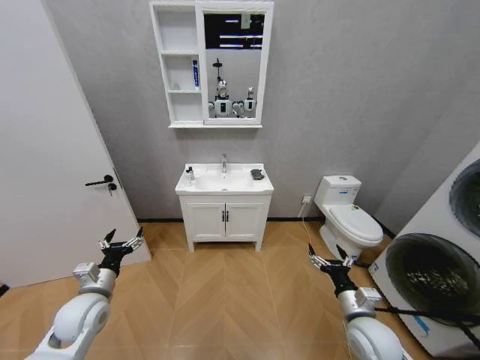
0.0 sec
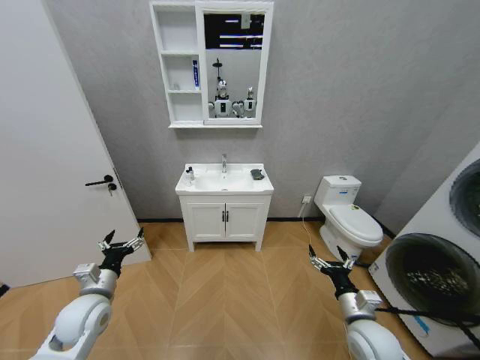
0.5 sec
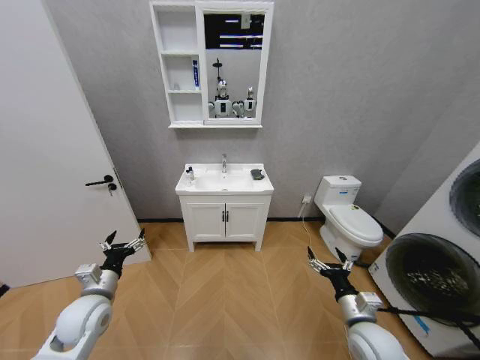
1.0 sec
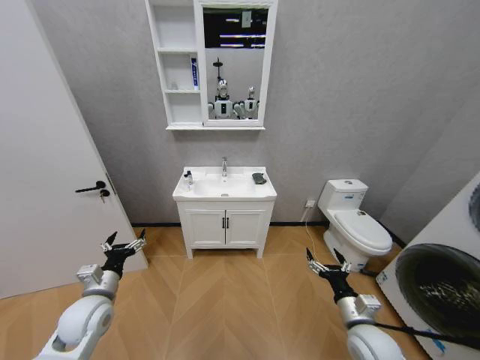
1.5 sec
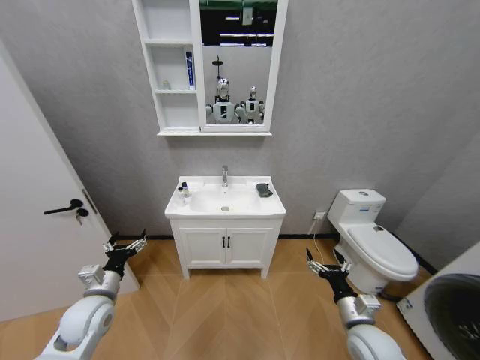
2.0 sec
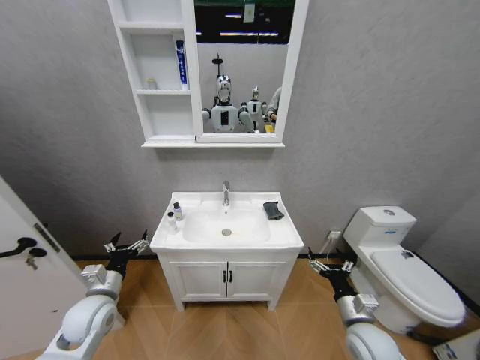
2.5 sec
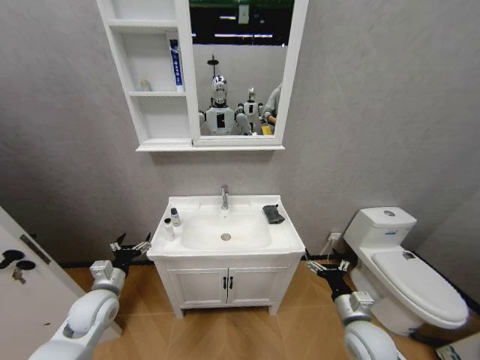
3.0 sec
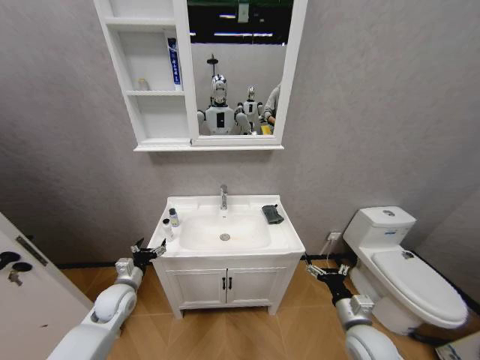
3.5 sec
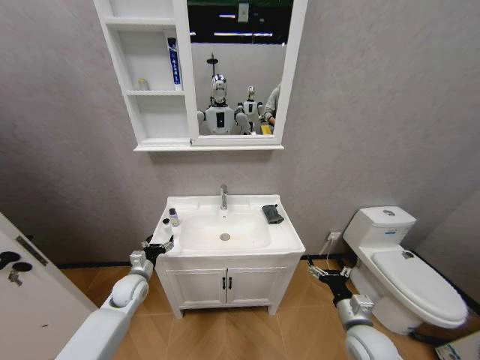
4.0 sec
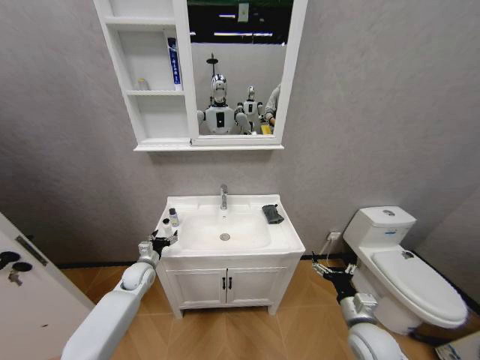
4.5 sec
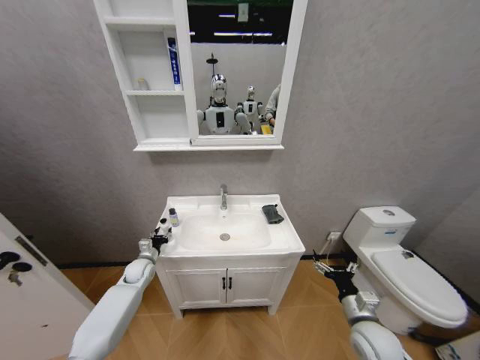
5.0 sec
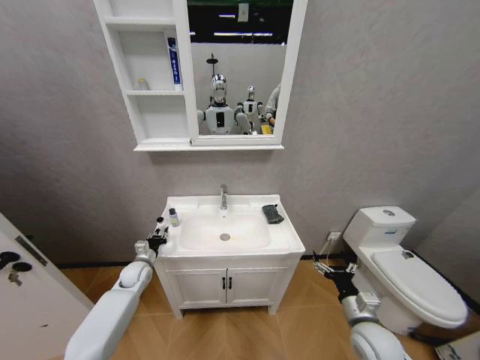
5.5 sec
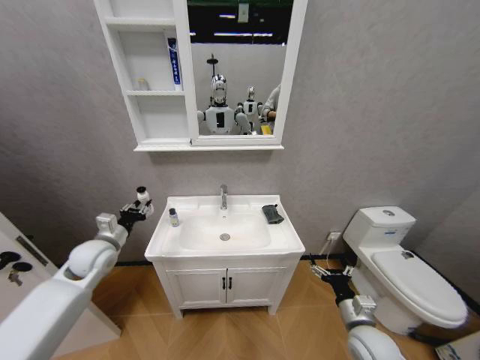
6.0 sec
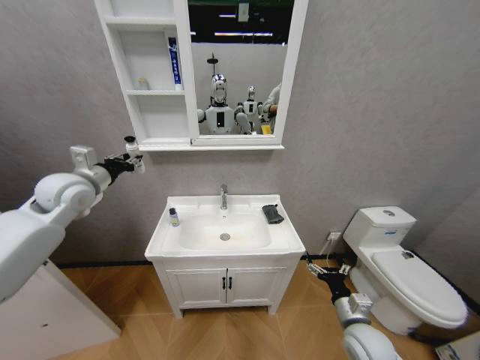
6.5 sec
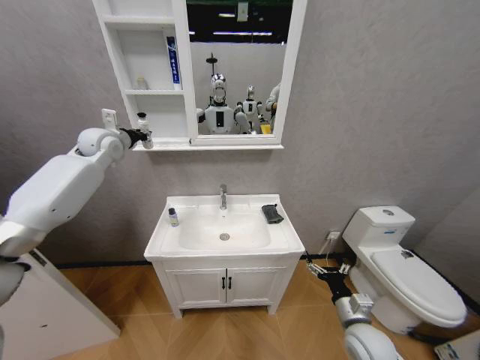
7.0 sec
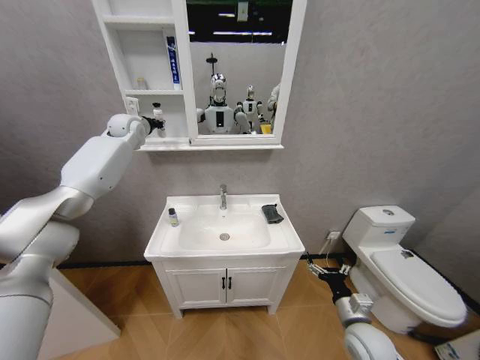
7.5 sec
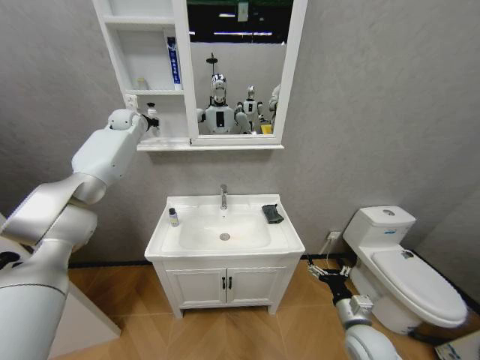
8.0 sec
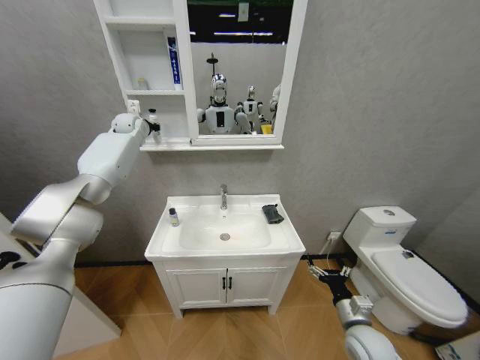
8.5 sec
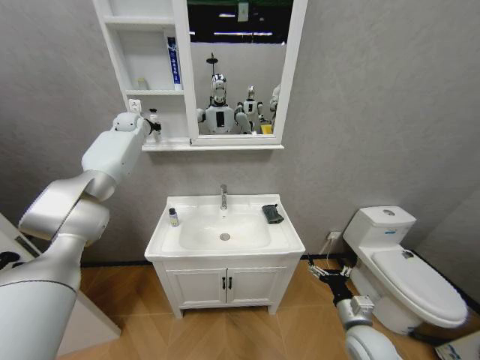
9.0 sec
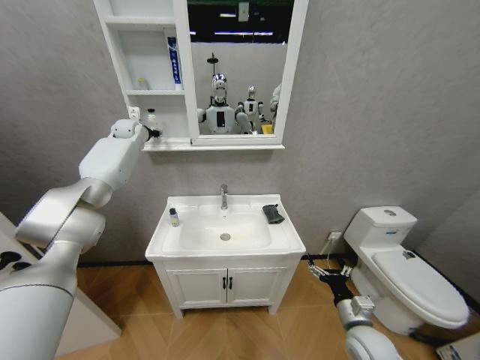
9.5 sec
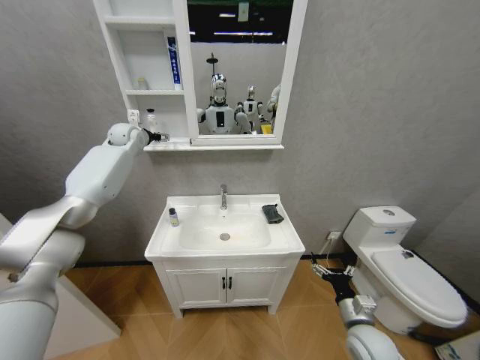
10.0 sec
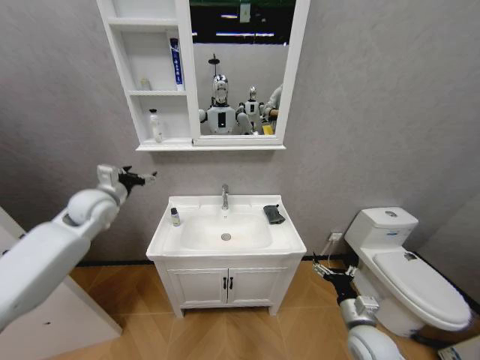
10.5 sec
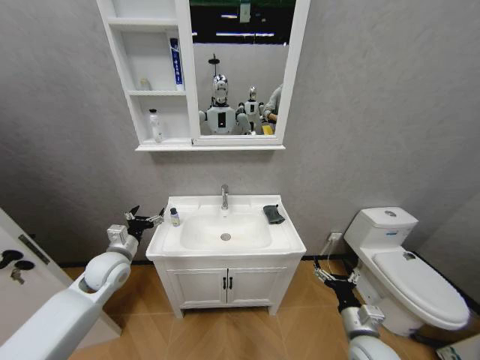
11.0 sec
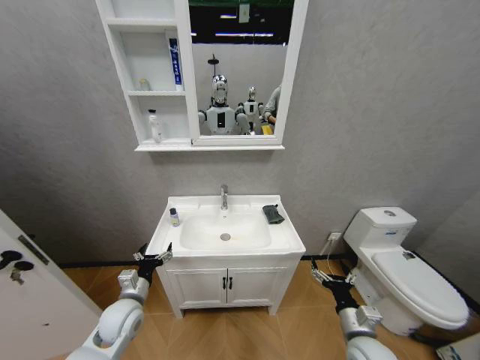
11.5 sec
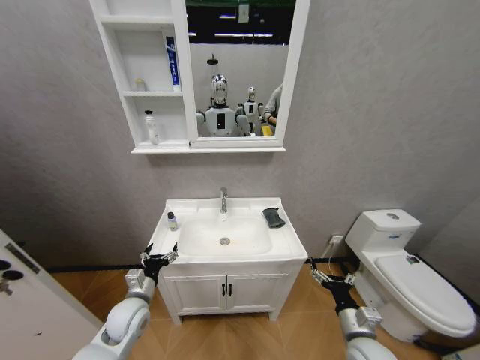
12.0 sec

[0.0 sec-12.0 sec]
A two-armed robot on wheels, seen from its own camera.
Task of the whole recording: Move facial cleanser and shampoo from washbasin to cabinet, then wipe washbasin with towel.
2.0 sec to 4.0 sec: The left gripper shifts roughly 15 cm forward and downward.
4.0 sec to 6.0 sec: The left gripper is displaced upward by some 15 cm, and closes.
6.0 sec to 8.0 sec: The left gripper goes about 40 cm forward and upward.
8.0 sec to 10.0 sec: The left gripper opens.
10.0 sec to 12.0 sec: The left gripper travels backward and downward by approximately 50 cm.

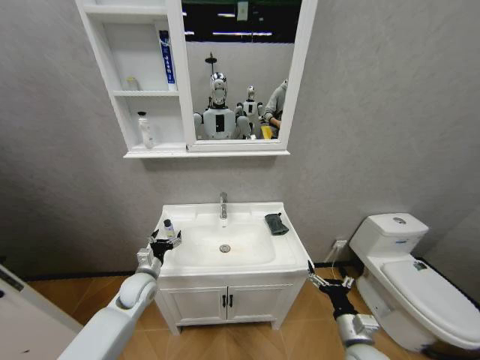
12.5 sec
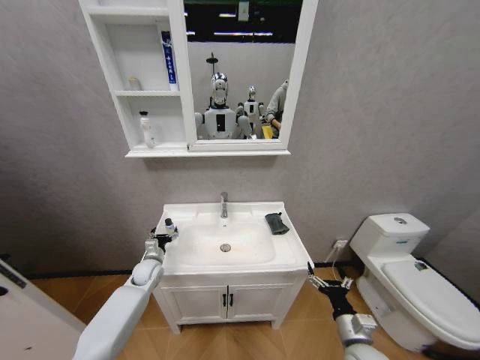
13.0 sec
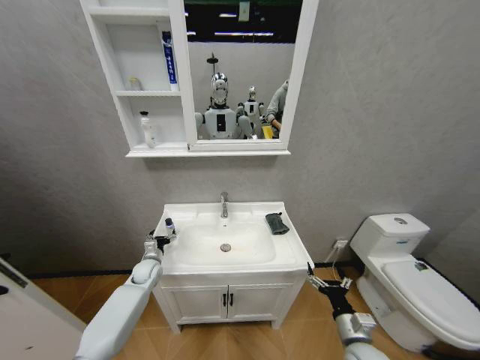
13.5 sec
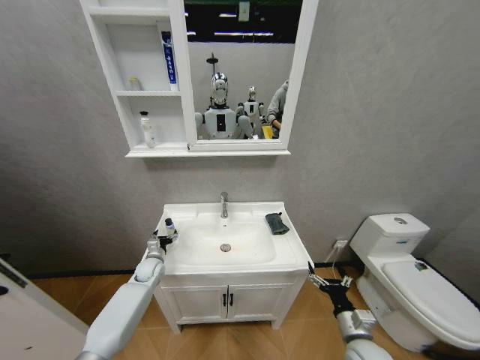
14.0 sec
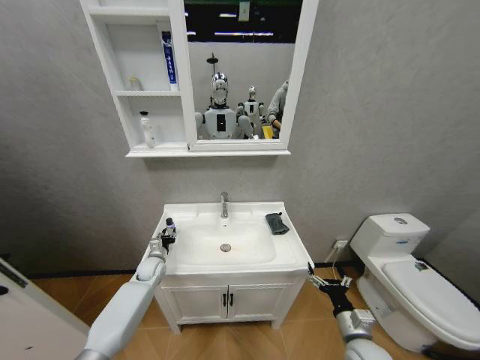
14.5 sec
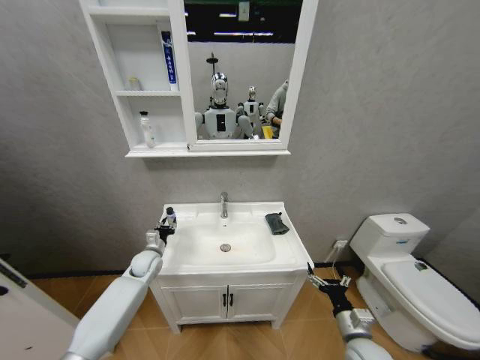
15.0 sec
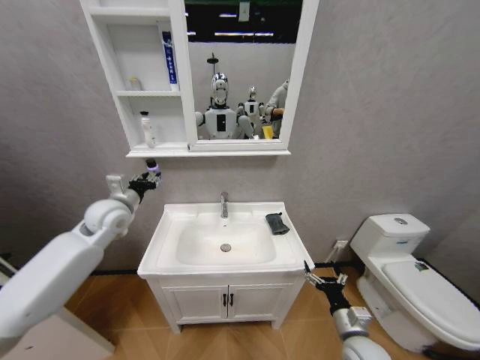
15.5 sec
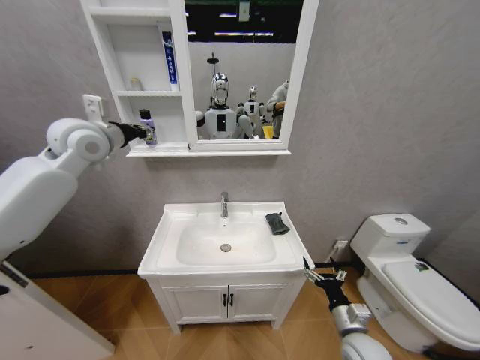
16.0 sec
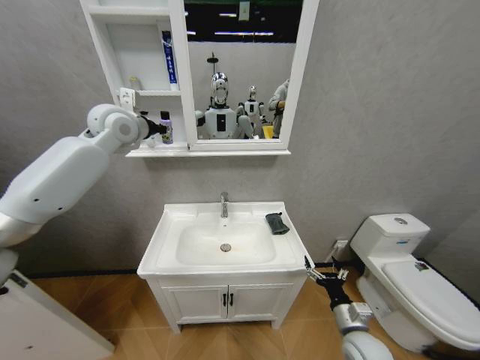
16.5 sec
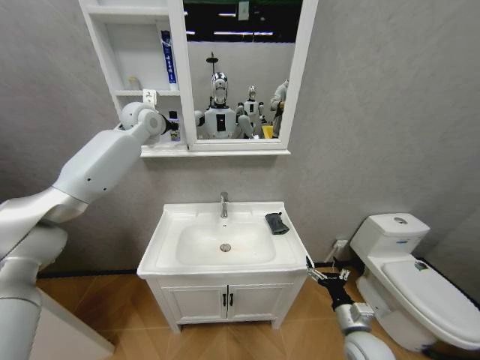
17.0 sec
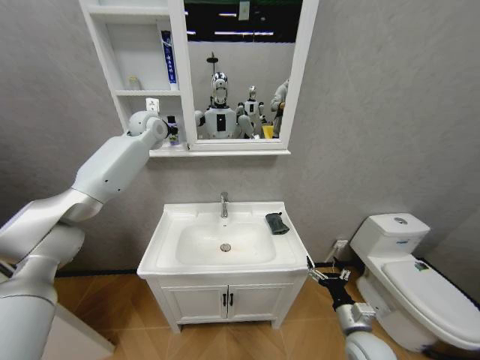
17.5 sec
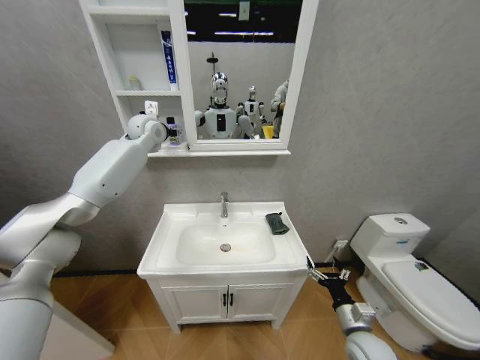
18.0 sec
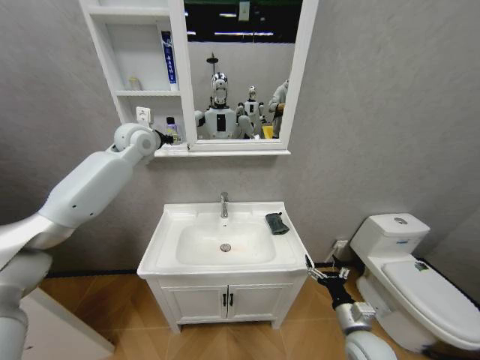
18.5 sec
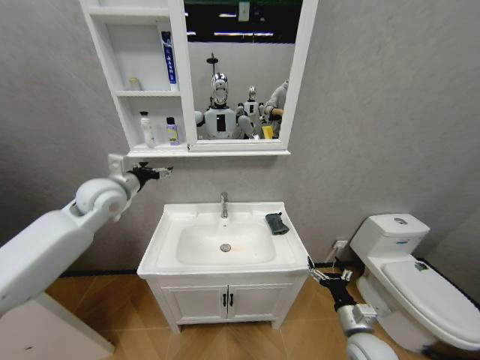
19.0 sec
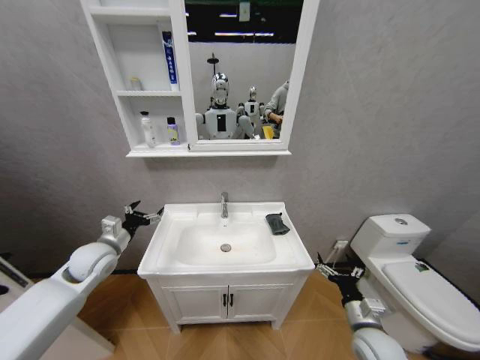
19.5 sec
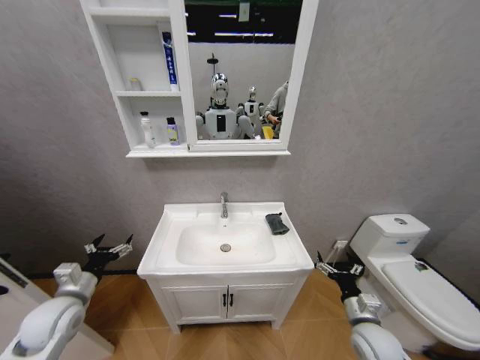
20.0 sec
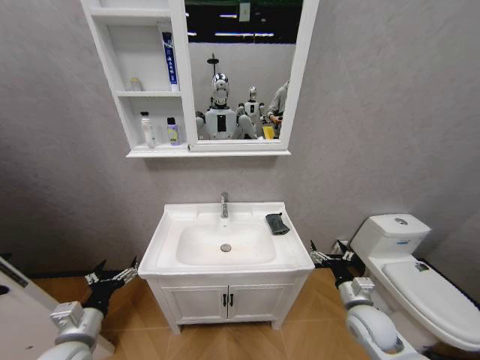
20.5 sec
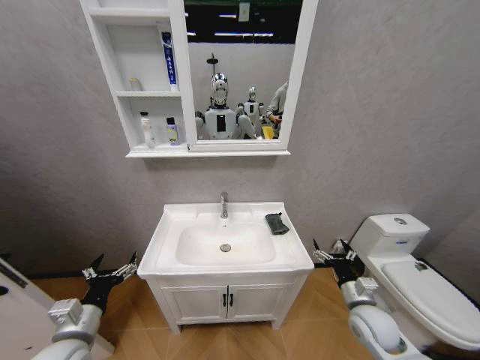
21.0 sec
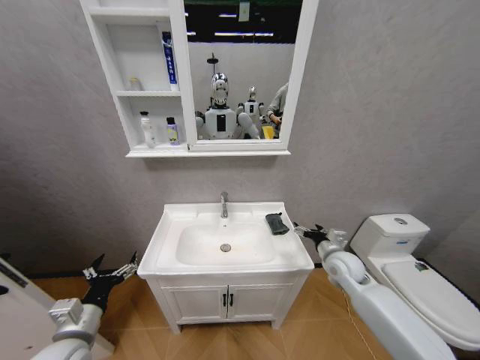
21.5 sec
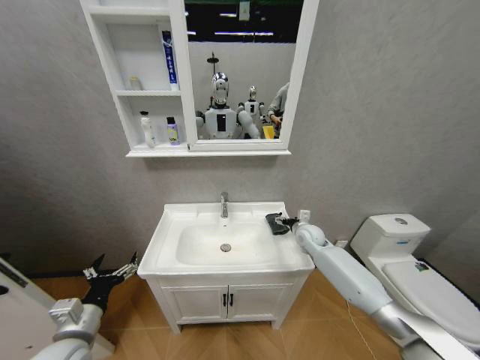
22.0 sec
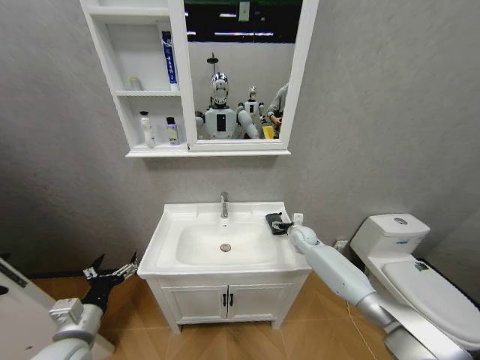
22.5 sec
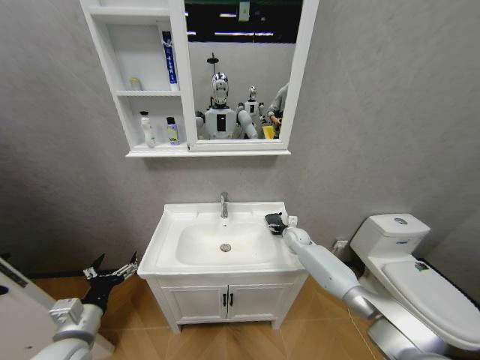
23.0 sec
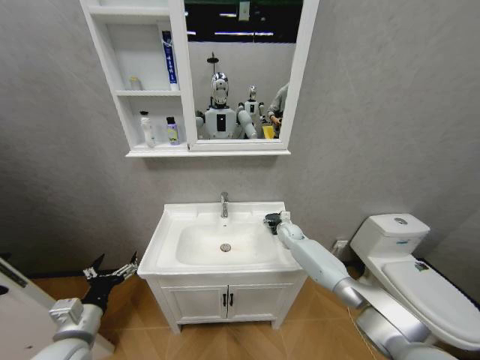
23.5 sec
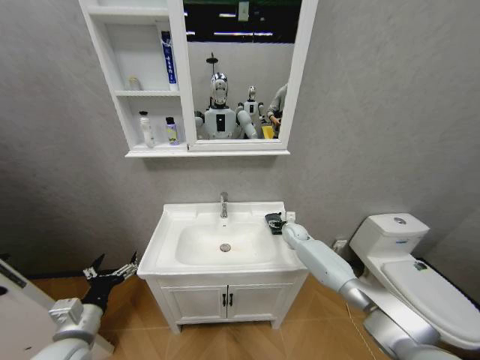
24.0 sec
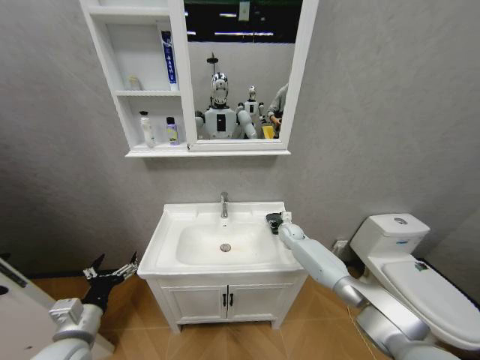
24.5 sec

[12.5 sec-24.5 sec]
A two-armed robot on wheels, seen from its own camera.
Task of the whole recording: Move facial cleanser and shampoo from washbasin to cabinet, then wipe washbasin with towel.
12.5 sec to 14.5 sec: The left gripper is displaced forward and downward by roughly 10 cm, and closes its fingers.
14.5 sec to 16.5 sec: The left gripper shifts roughly 50 cm upward.
16.5 sec to 18.5 sec: The left gripper travels forward and back again, approximately 10 cm each way, and opens its fingers.
18.5 sec to 20.5 sec: The right gripper heads forward, covering some 5 cm. The left gripper moves backward and downward, approximately 50 cm.
20.5 sec to 22.5 sec: The right gripper shifts about 30 cm forward.
22.5 sec to 24.5 sec: The right gripper moves some 5 cm.

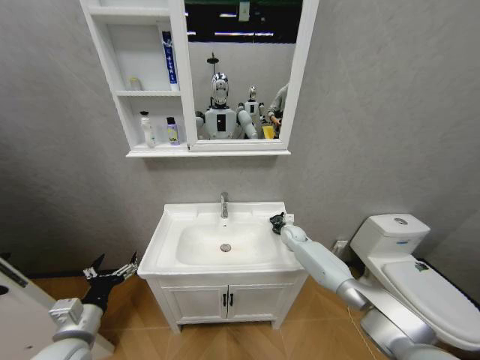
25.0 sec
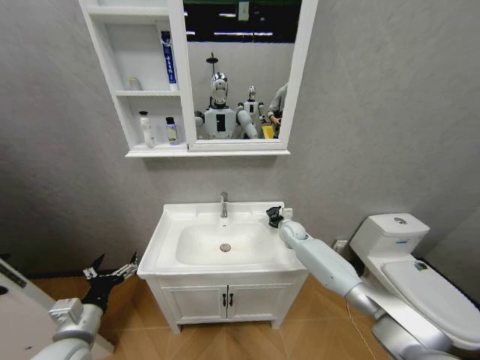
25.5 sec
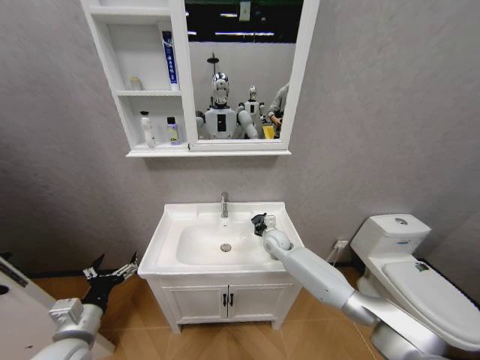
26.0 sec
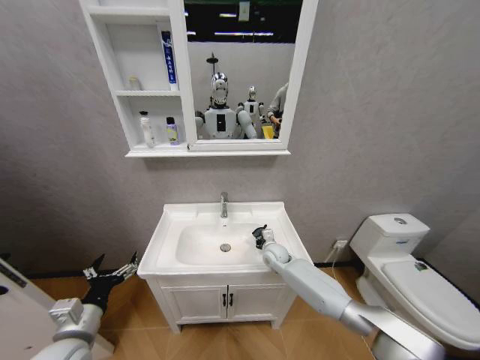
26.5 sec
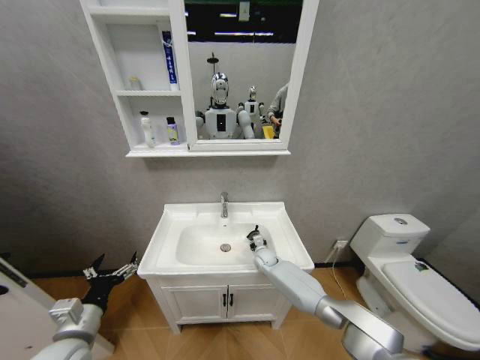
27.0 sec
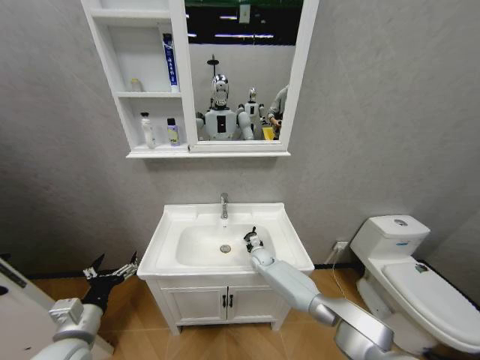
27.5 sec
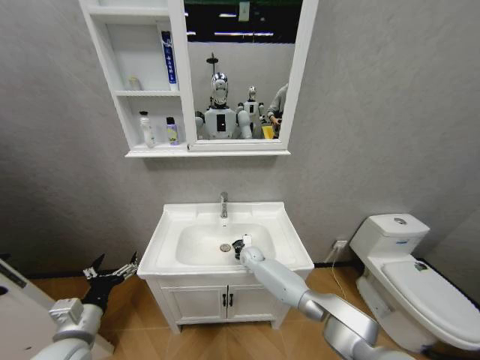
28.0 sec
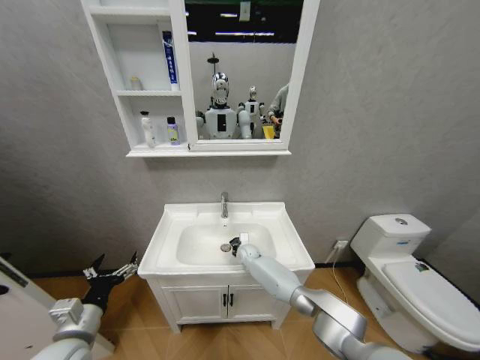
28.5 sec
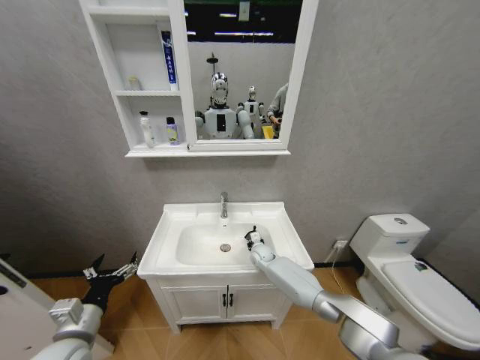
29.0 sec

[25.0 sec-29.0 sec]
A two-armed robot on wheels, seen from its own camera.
Task of the whole recording: Move facial cleanser and shampoo from washbasin to cabinet, then wipe washbasin with towel.
25.0 sec to 27.0 sec: The right gripper goes roughly 15 cm to the left, downward and backward.
